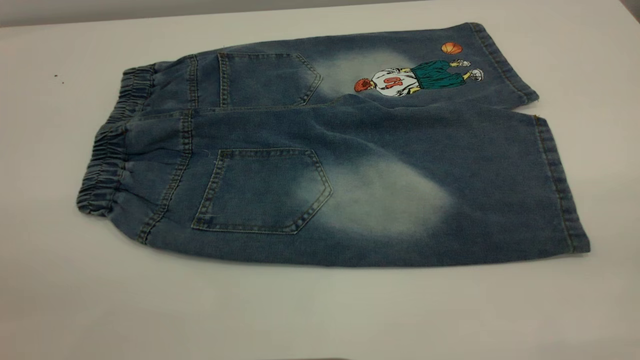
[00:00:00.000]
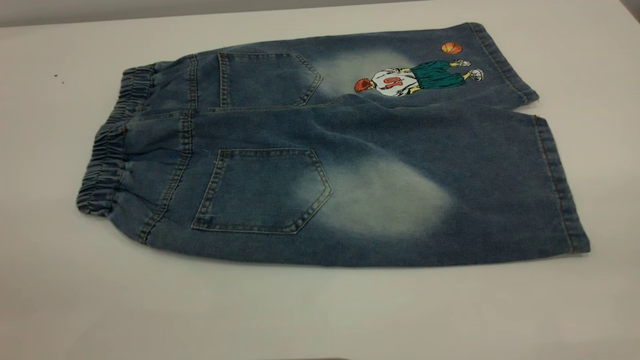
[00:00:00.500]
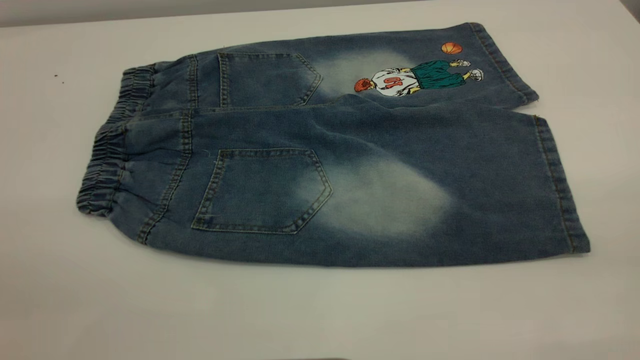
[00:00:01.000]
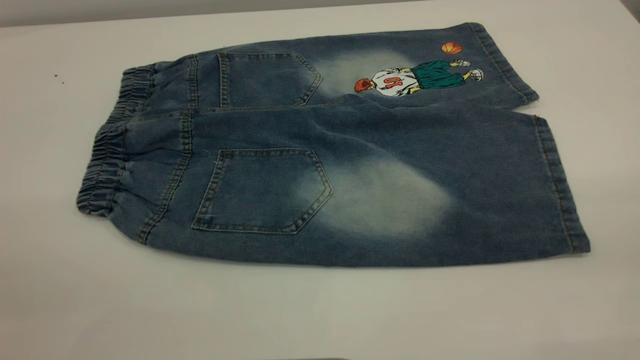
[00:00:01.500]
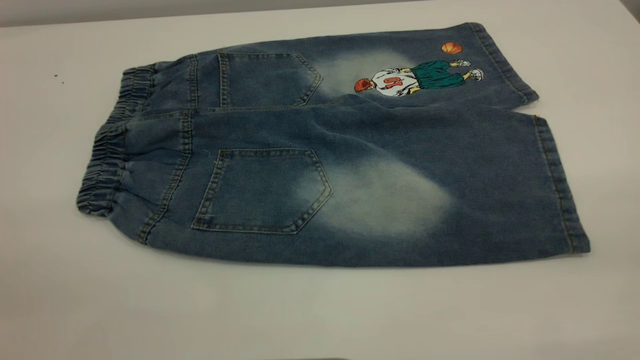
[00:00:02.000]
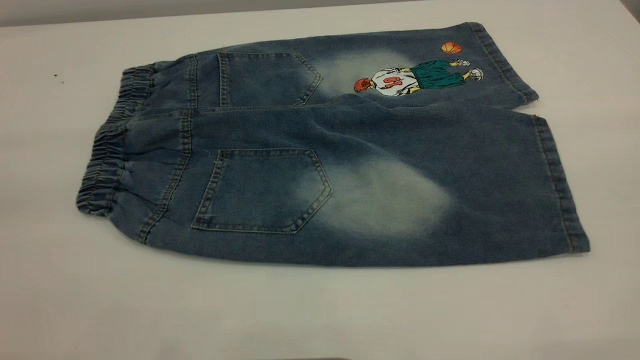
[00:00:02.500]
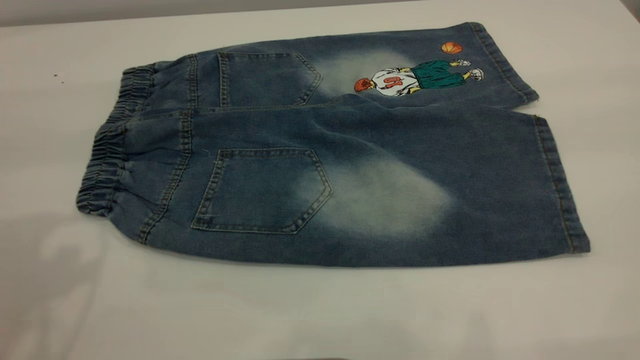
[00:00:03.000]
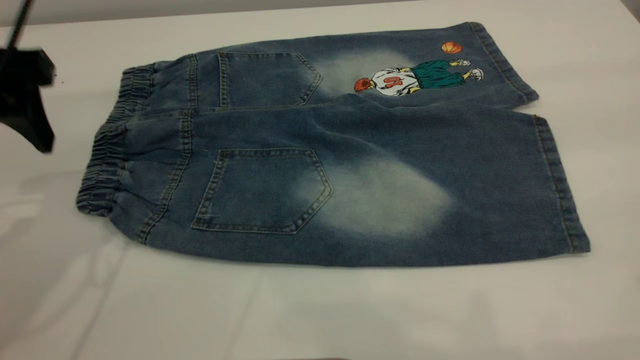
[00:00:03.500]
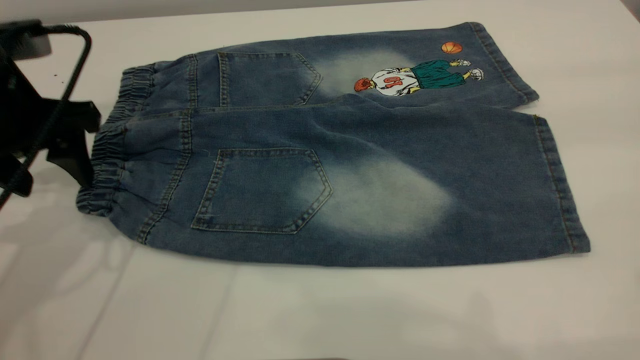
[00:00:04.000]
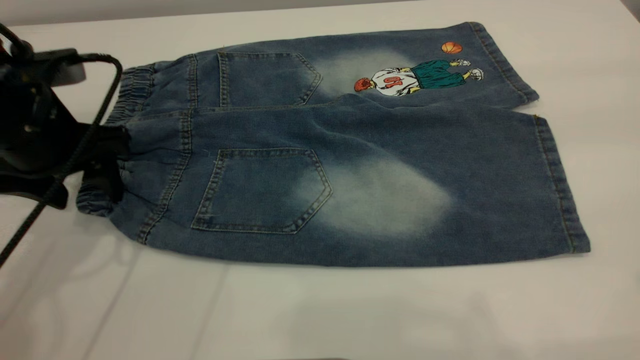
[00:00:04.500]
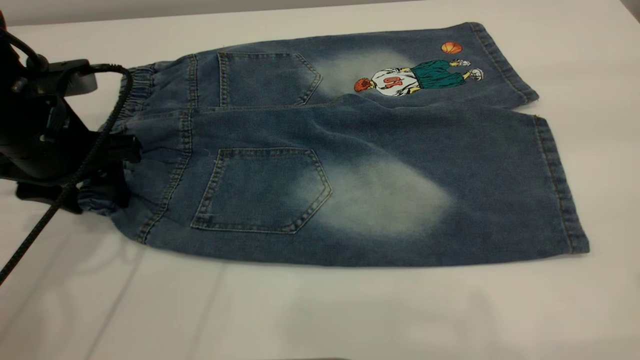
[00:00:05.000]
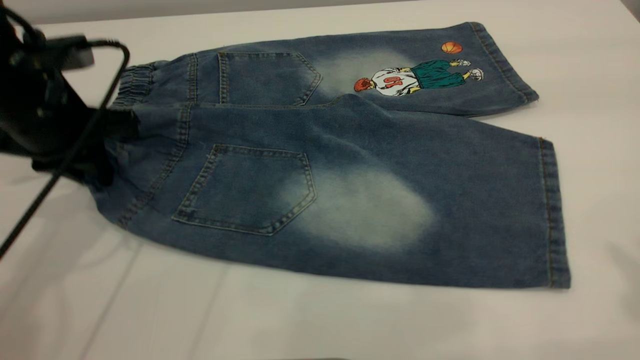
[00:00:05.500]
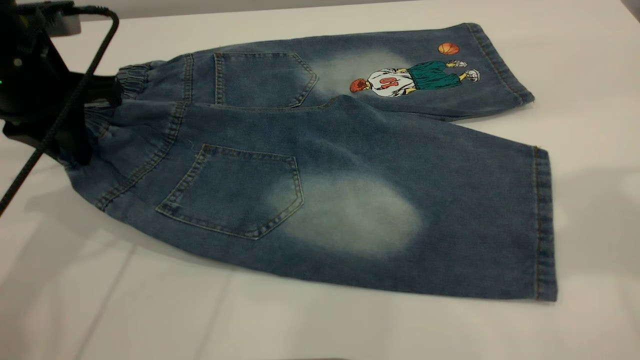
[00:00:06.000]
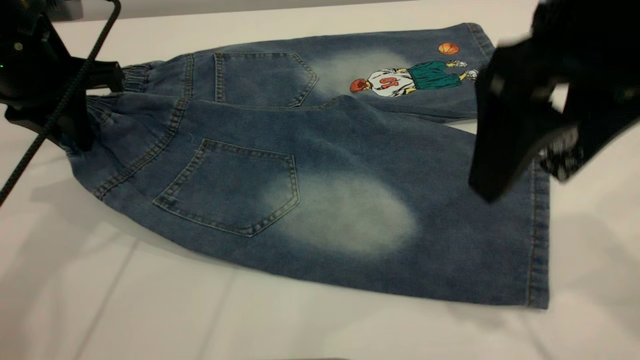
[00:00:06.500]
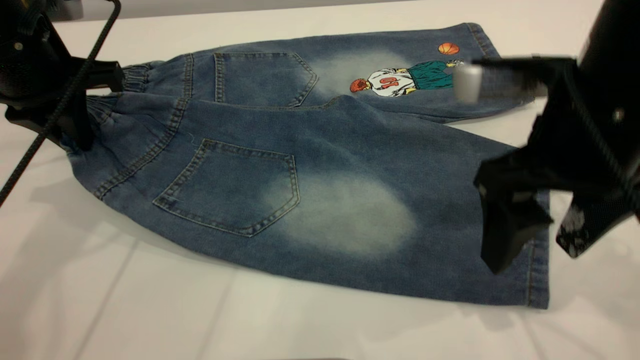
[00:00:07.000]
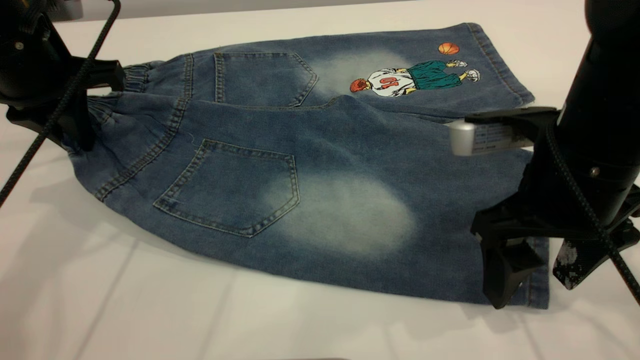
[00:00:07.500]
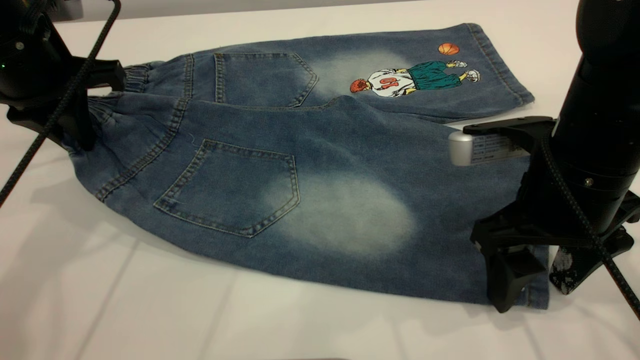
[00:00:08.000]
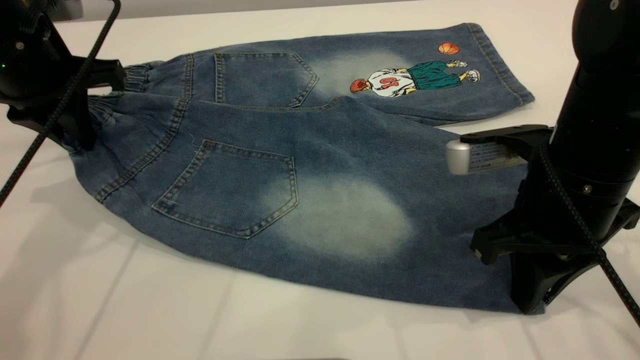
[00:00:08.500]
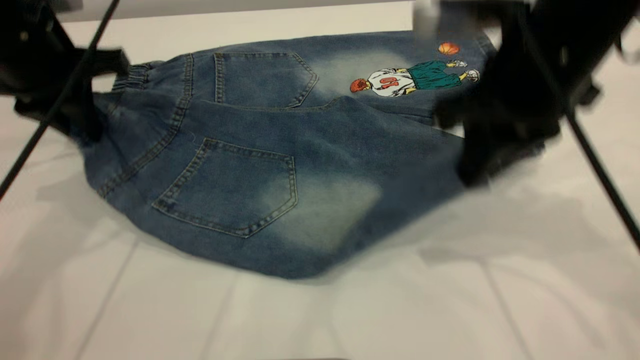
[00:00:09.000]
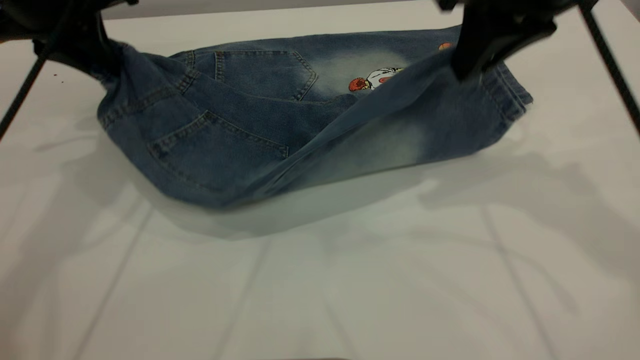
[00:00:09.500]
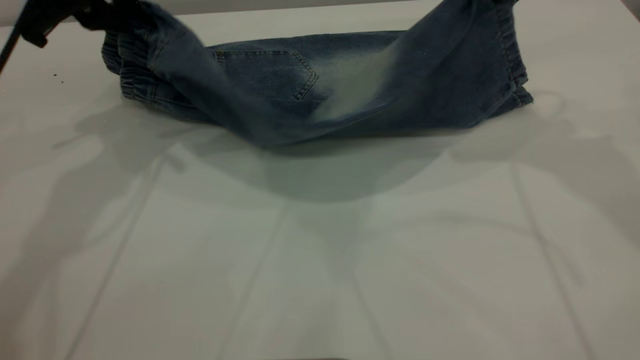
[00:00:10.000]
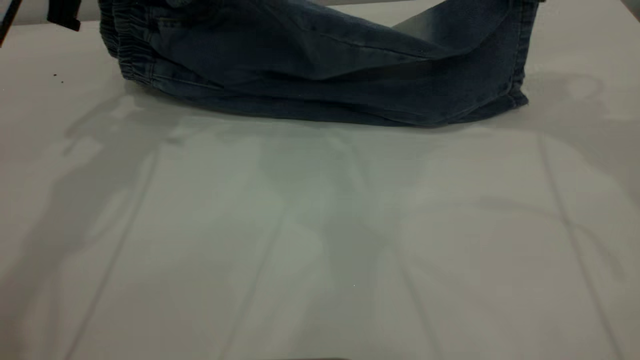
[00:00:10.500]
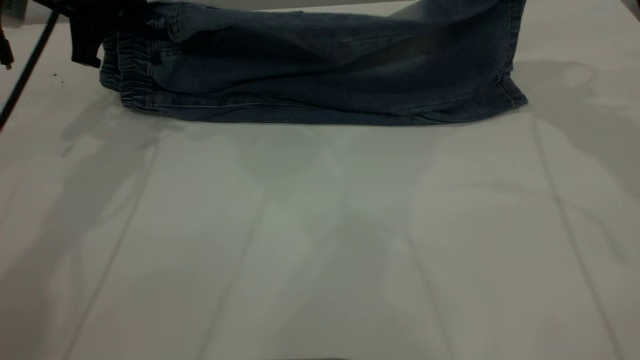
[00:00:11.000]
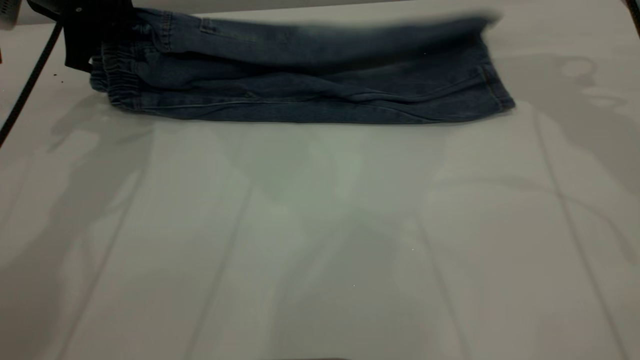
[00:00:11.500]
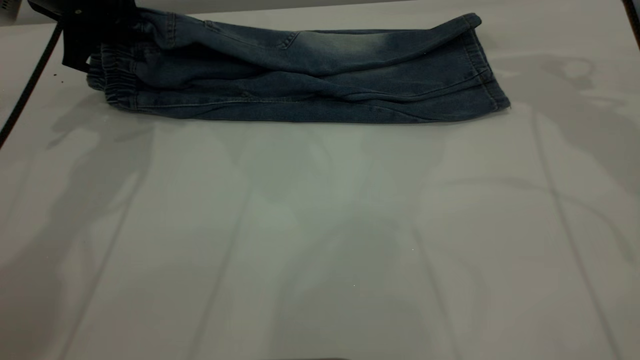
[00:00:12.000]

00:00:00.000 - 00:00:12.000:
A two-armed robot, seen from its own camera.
00:00:00.000 - 00:00:02.000: The two grippers keep their place.
00:00:02.000 - 00:00:04.000: The left gripper shifts about 35 cm forward and downward.
00:00:04.000 - 00:00:06.000: The right gripper moves forward, to the left and downward, approximately 15 cm, while the left gripper closes its fingers.
00:00:06.000 - 00:00:08.000: The right gripper shifts some 20 cm downward.
00:00:08.000 - 00:00:10.000: The right gripper travels upward and forward by approximately 20 cm, and closes up. The left gripper goes some 5 cm upward.
00:00:10.000 - 00:00:12.000: The left gripper travels downward by some 5 cm, and opens. Meanwhile the right gripper heads forward and downward, covering roughly 10 cm, and opens up.

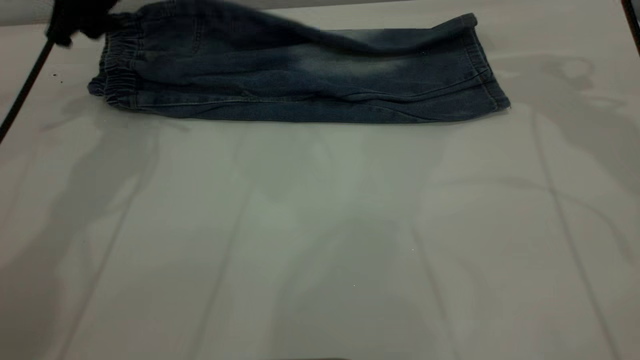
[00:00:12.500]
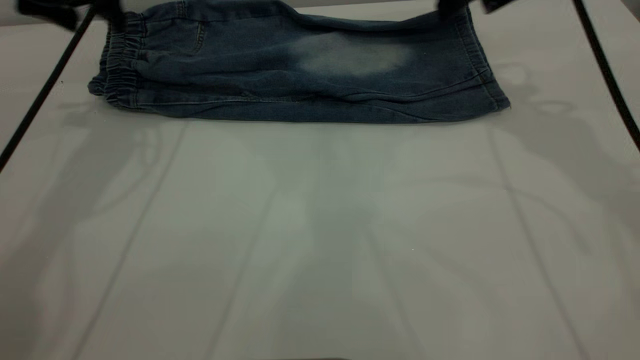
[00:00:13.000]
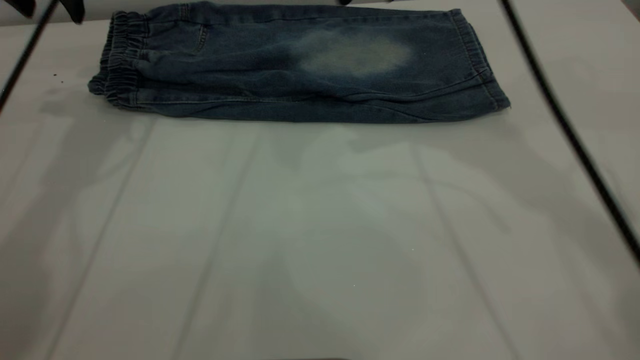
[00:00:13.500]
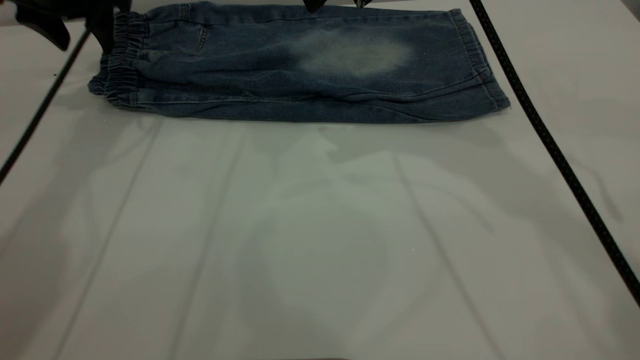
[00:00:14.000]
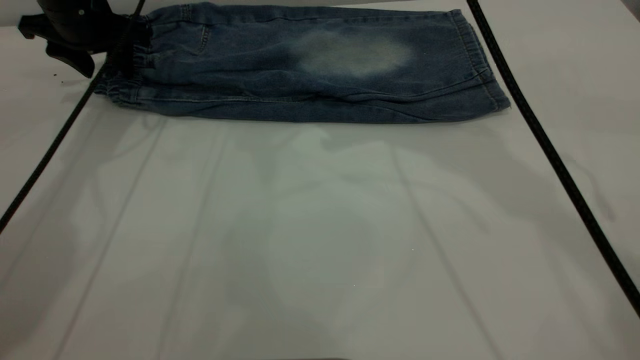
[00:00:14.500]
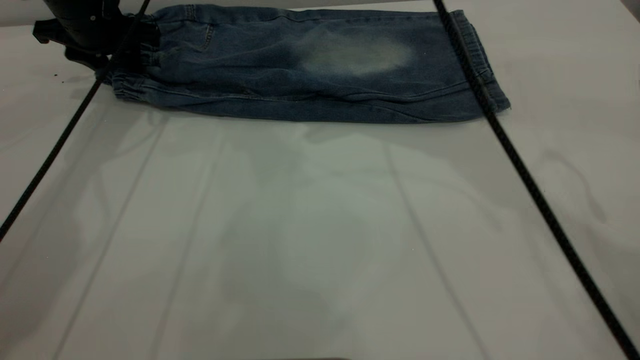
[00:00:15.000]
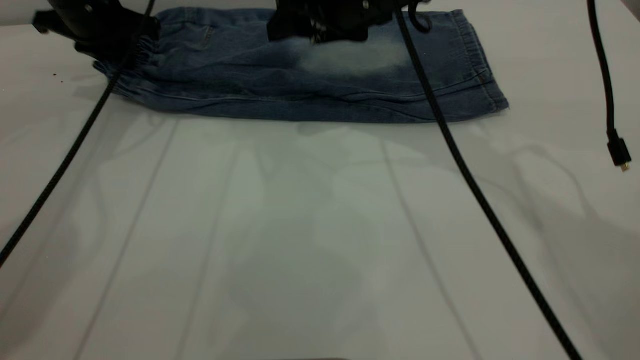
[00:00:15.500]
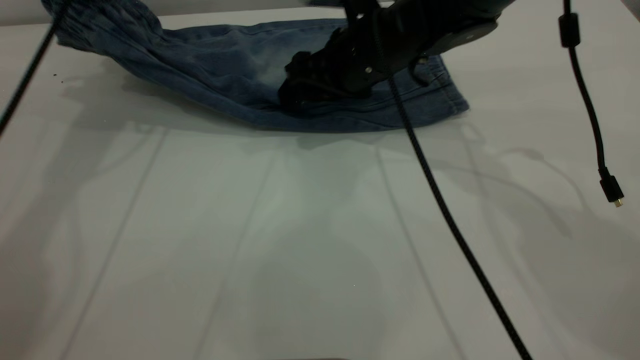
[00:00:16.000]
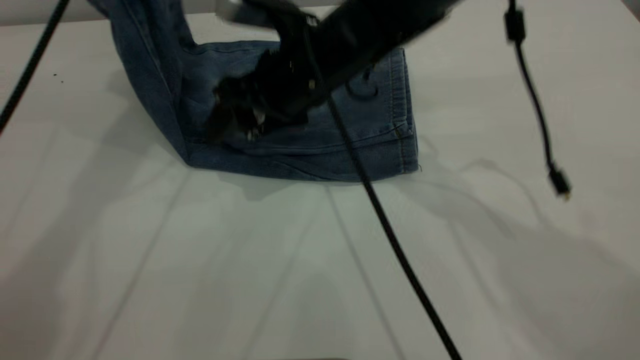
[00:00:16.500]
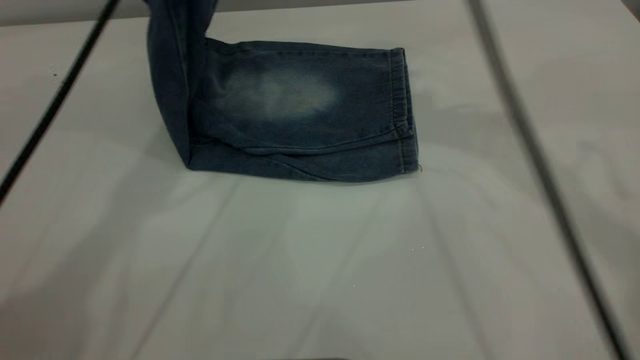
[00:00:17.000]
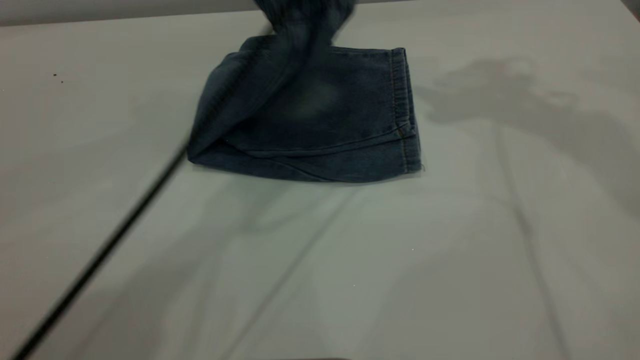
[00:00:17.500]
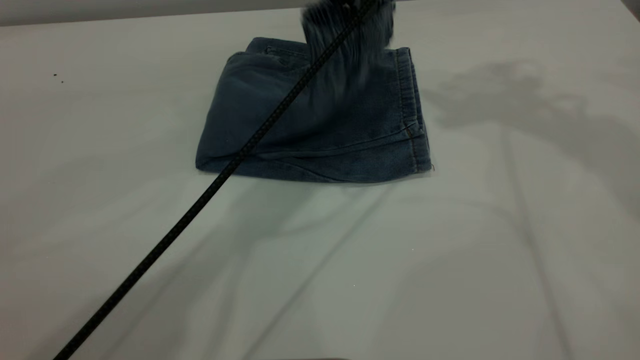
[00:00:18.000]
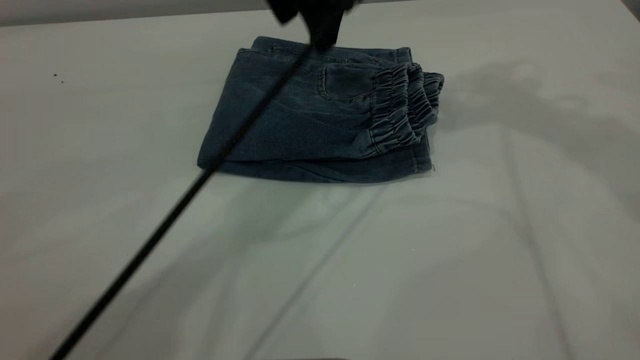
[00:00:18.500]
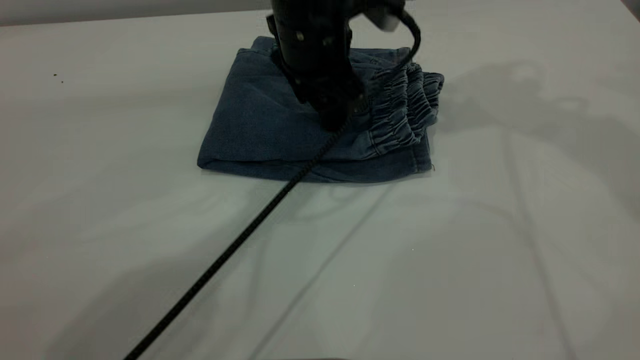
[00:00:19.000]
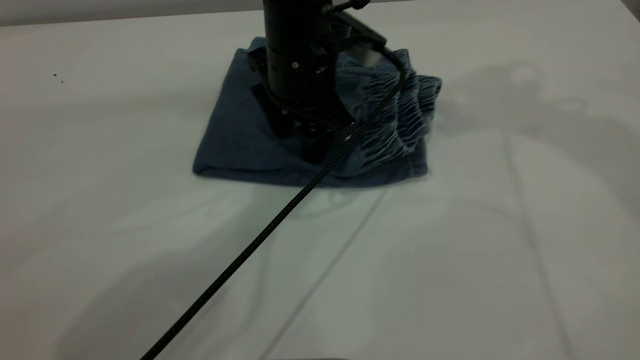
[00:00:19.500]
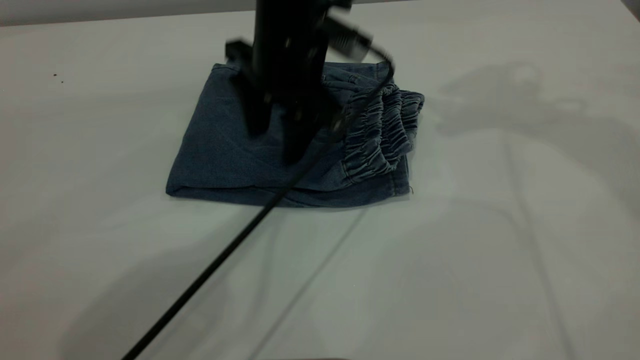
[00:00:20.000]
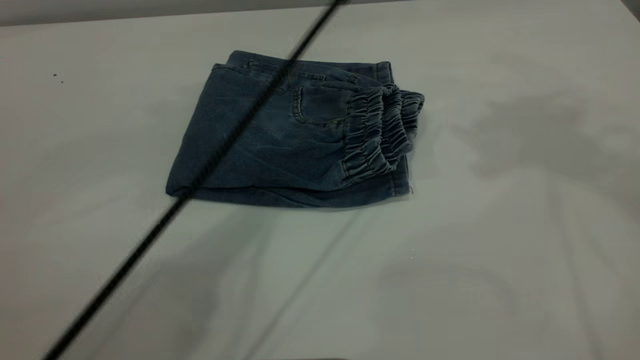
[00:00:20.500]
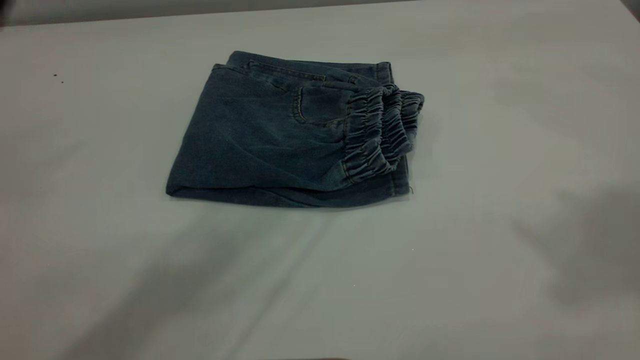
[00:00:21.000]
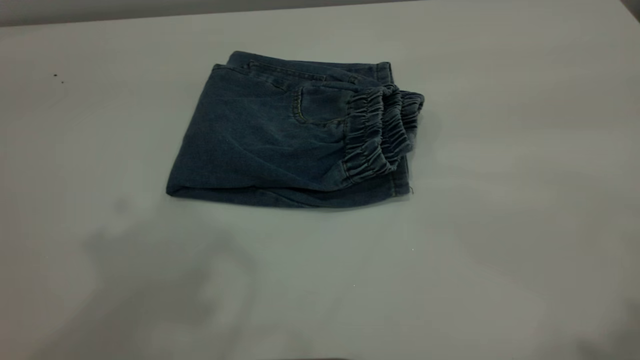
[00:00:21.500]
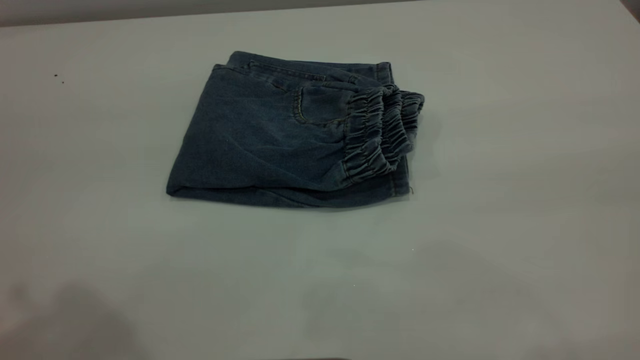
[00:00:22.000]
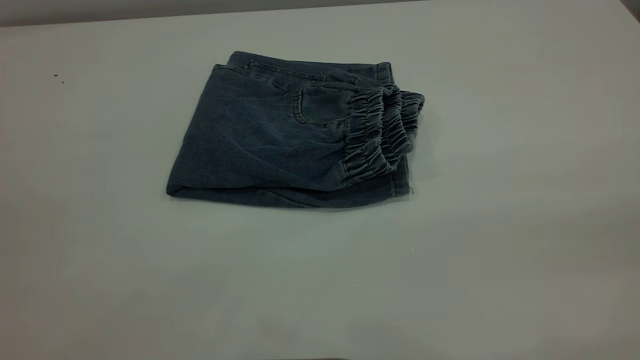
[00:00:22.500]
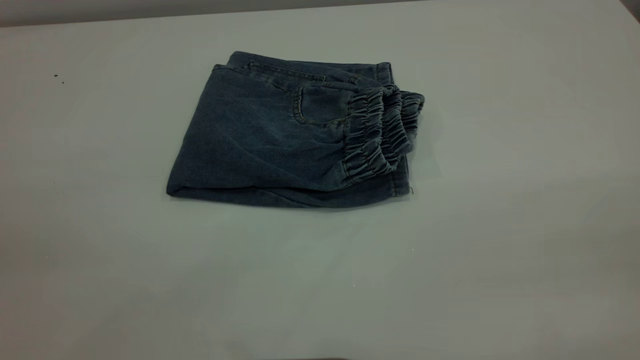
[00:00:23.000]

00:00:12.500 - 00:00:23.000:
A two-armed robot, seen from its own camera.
Step, 00:00:14.000 - 00:00:18.000: Fold the pants from left to right.
00:00:12.500 - 00:00:14.500: The left gripper shifts roughly 10 cm downward and forward. The right gripper is displaced to the left by roughly 20 cm.
00:00:14.500 - 00:00:16.500: The left gripper moves upward and to the right, about 20 cm, and closes up; the right gripper shifts roughly 15 cm downward and to the left.
00:00:16.500 - 00:00:19.000: The left gripper shifts about 25 cm to the right and downward, and opens up. Meanwhile the right gripper moves upward and to the right, approximately 30 cm.
00:00:19.000 - 00:00:21.000: The left gripper heads upward, covering roughly 35 cm, while the right gripper travels backward and upward by about 25 cm.
